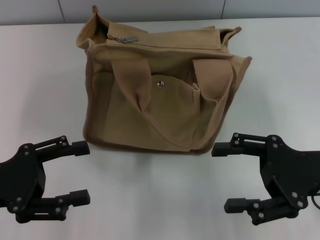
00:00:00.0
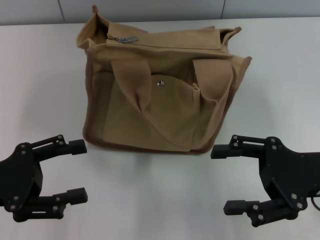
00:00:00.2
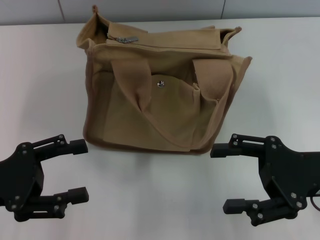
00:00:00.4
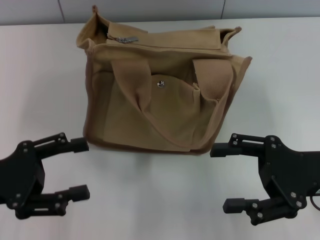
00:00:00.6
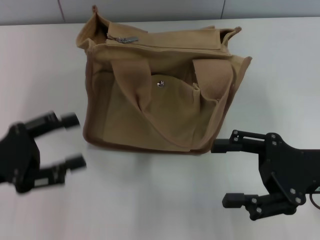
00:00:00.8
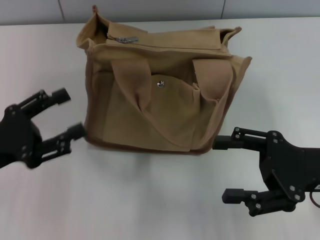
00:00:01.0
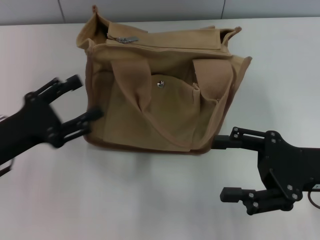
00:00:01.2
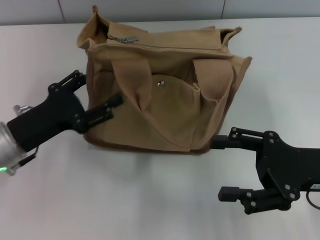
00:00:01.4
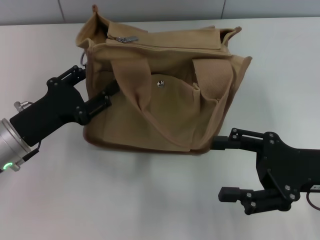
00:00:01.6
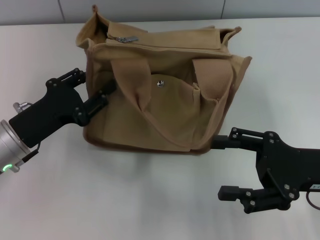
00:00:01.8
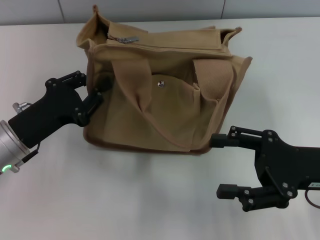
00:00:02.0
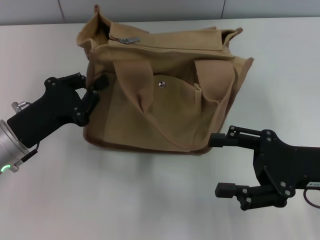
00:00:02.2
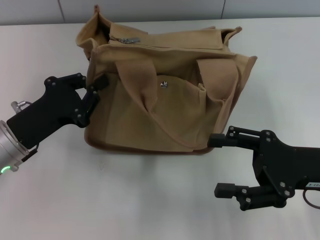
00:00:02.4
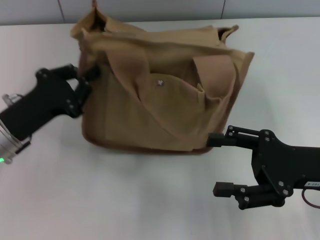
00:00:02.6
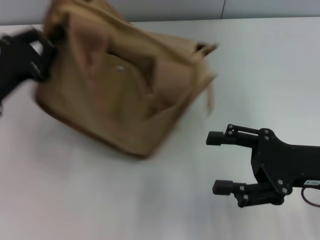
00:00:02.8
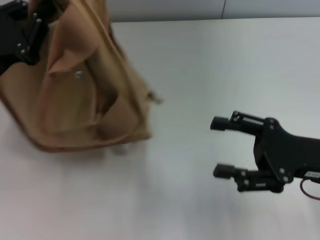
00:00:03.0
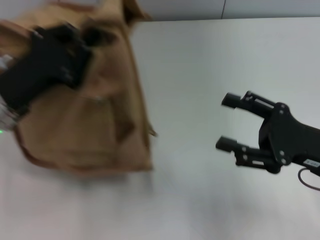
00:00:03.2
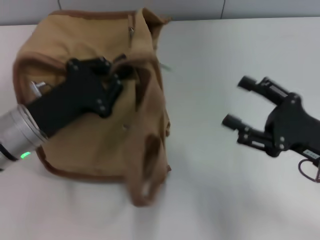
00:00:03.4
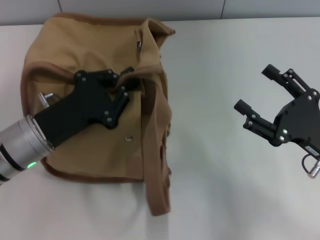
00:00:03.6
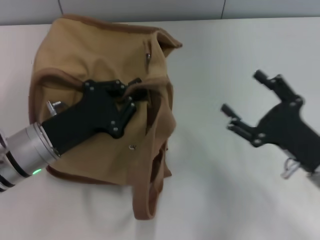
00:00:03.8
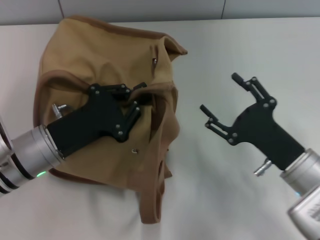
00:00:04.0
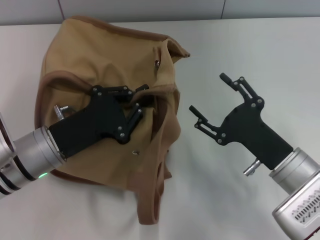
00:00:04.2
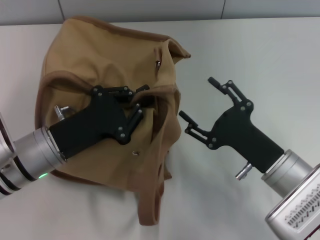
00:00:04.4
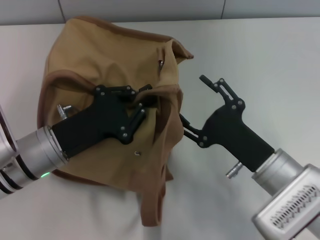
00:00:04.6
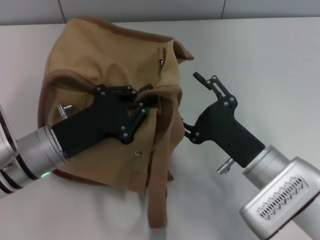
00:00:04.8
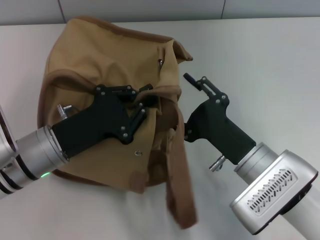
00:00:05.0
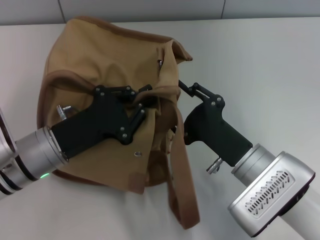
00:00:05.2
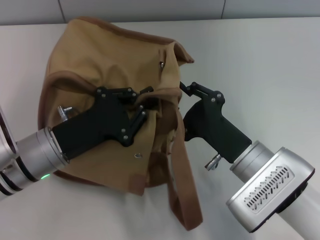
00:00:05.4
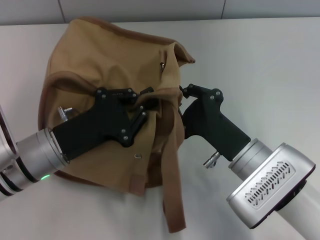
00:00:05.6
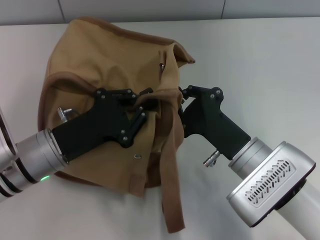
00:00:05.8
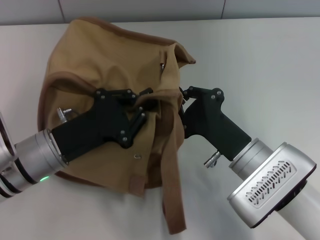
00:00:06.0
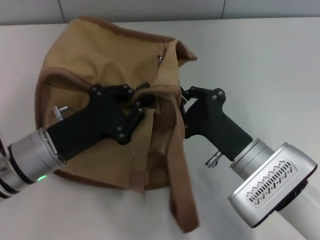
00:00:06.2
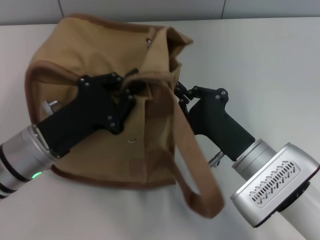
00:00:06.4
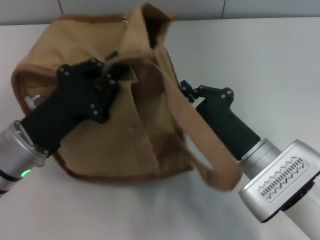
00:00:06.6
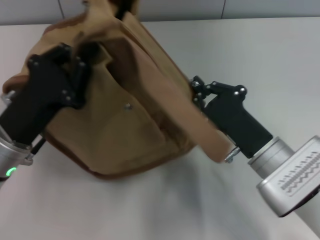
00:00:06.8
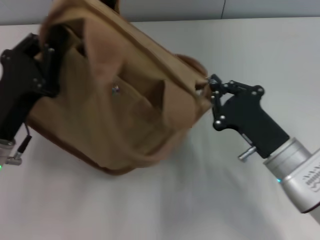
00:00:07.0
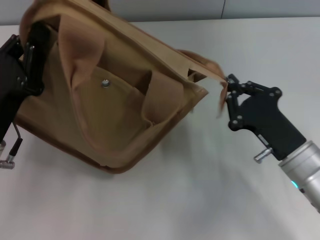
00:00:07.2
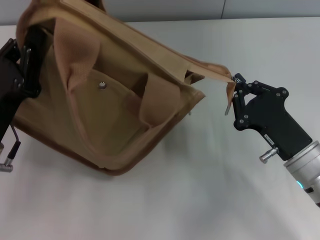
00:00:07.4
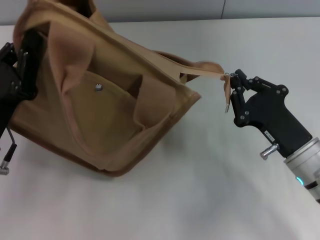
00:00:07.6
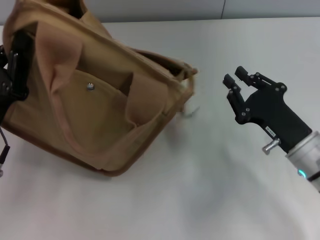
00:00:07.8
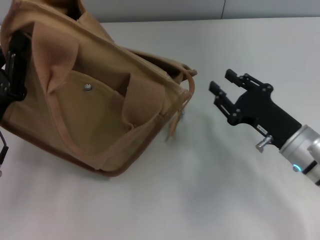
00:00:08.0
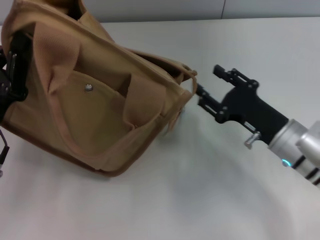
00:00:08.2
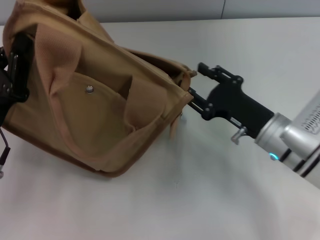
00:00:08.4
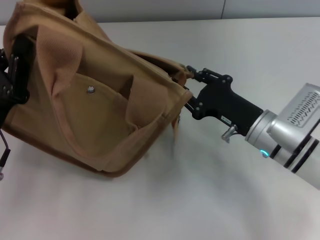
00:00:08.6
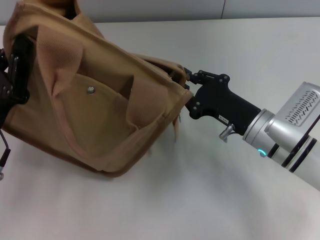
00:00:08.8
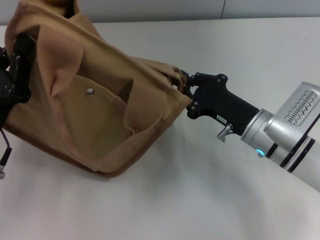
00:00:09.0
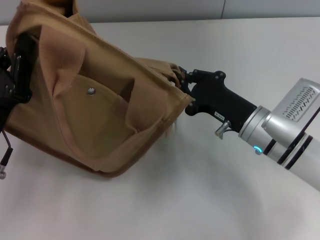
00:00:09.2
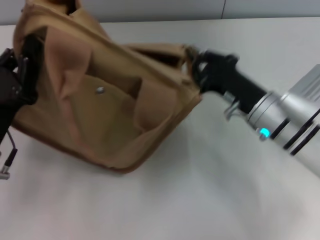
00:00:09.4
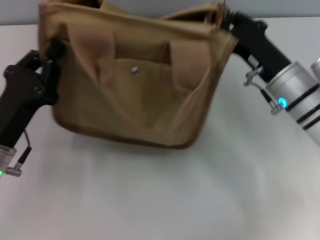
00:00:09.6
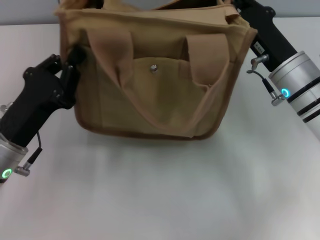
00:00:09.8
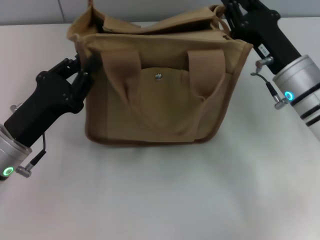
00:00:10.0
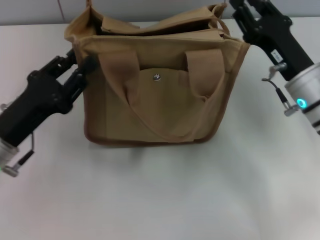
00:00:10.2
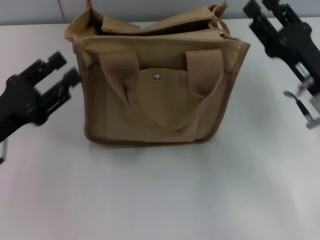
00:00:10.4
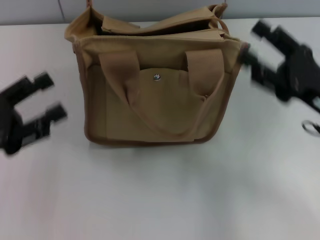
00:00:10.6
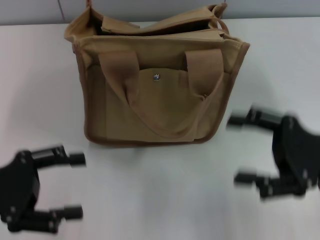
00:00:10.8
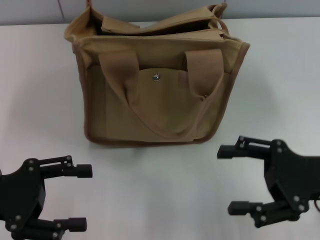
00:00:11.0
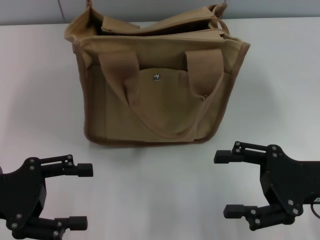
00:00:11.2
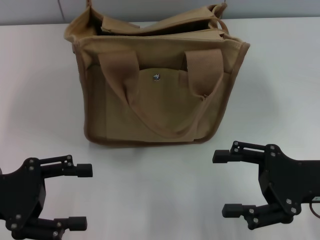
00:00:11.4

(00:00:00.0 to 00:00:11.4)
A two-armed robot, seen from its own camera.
Step, 00:00:00.0 - 00:00:07.6: Pull open the zipper with your right hand.
Step, 00:00:07.8 - 00:00:10.2: Grab the bag with your left hand.
00:00:00.0 - 00:00:01.4: The left gripper heads forward and to the right, covering about 10 cm.
00:00:01.4 - 00:00:02.8: The left gripper ends up about 5 cm from where it was, and closes.
00:00:02.8 - 00:00:04.2: The left gripper shifts about 10 cm to the right. Meanwhile the right gripper goes about 10 cm downward and to the left.
00:00:04.2 - 00:00:05.6: The right gripper goes roughly 5 cm to the left, and closes up.
00:00:05.6 - 00:00:07.2: The left gripper ends up approximately 5 cm from where it was, while the right gripper moves to the right, roughly 5 cm, and closes.
00:00:07.2 - 00:00:08.6: The right gripper heads forward, covering roughly 5 cm, and opens its fingers.
00:00:08.6 - 00:00:10.0: The right gripper ends up some 5 cm from where it was, and closes its fingers.
00:00:10.0 - 00:00:11.4: The left gripper goes roughly 5 cm to the left, and opens its fingers. Meanwhile the right gripper moves backward and to the right, some 10 cm, and opens up.

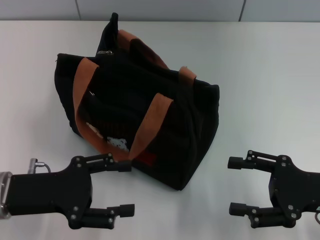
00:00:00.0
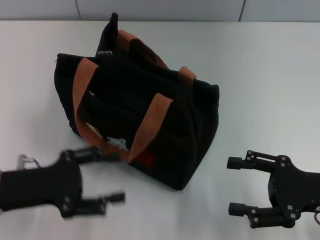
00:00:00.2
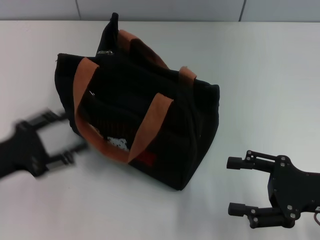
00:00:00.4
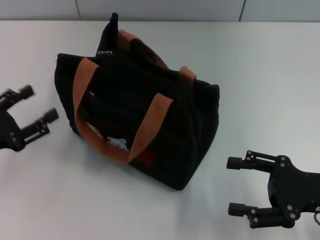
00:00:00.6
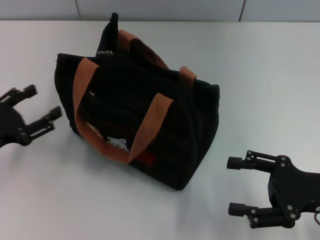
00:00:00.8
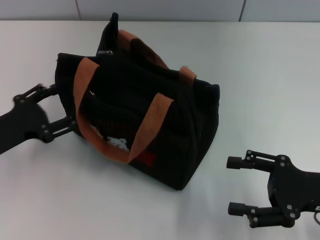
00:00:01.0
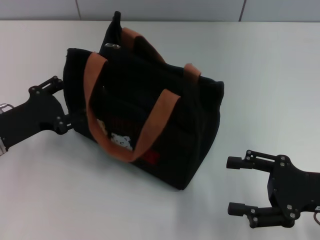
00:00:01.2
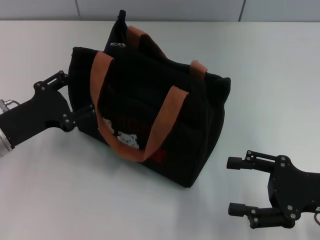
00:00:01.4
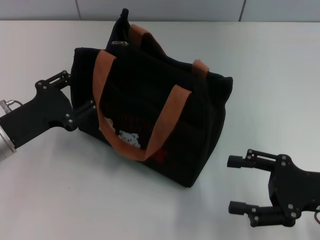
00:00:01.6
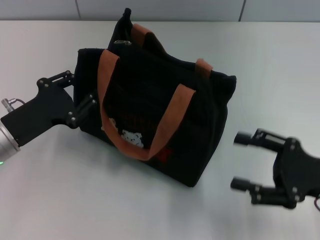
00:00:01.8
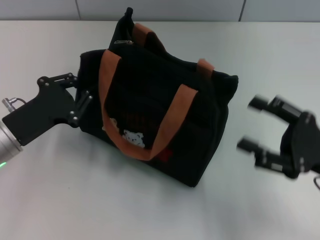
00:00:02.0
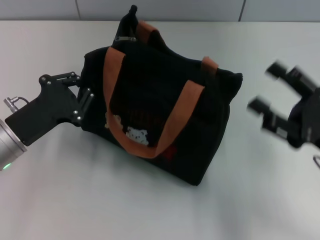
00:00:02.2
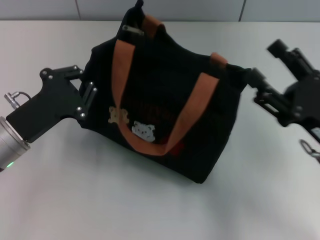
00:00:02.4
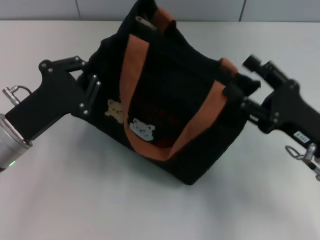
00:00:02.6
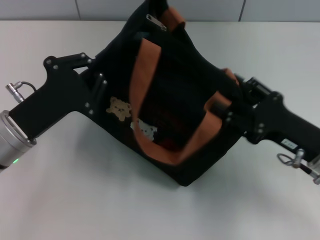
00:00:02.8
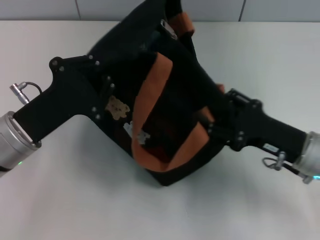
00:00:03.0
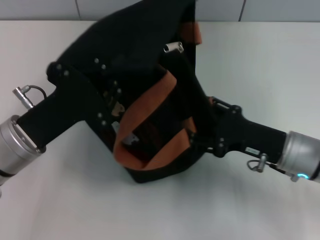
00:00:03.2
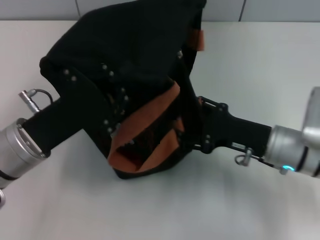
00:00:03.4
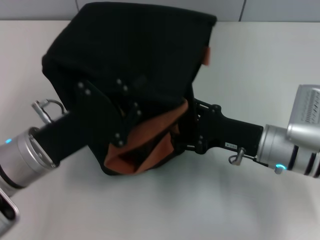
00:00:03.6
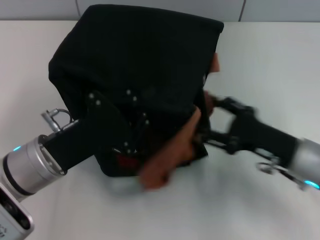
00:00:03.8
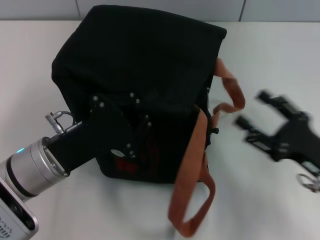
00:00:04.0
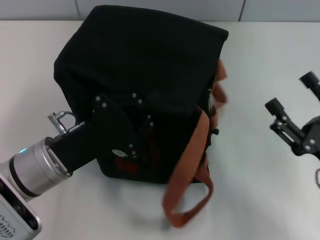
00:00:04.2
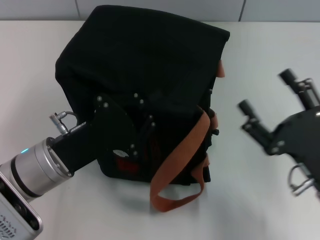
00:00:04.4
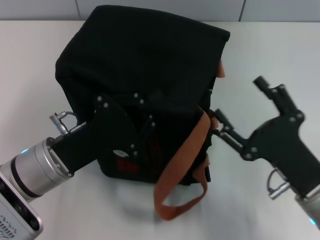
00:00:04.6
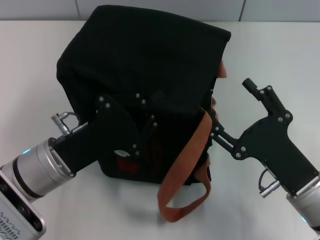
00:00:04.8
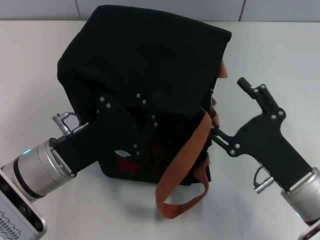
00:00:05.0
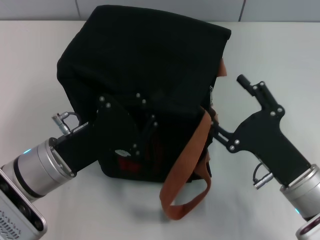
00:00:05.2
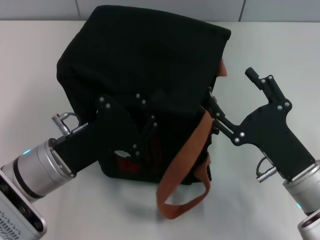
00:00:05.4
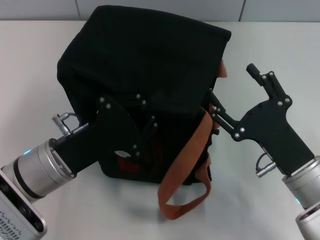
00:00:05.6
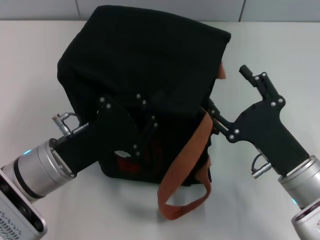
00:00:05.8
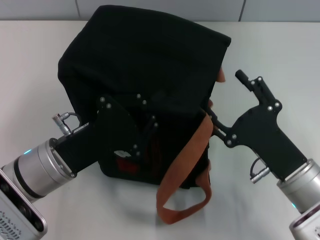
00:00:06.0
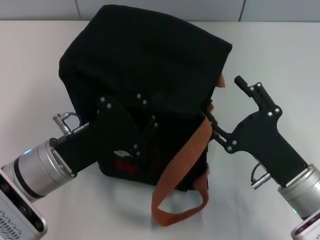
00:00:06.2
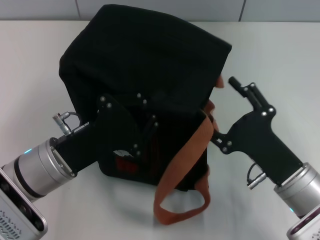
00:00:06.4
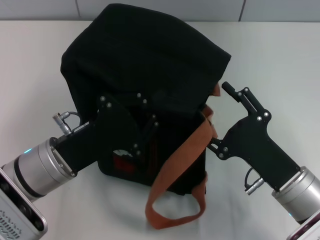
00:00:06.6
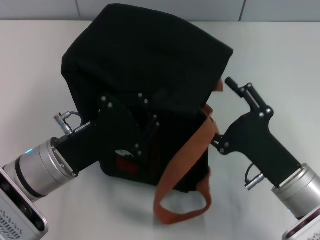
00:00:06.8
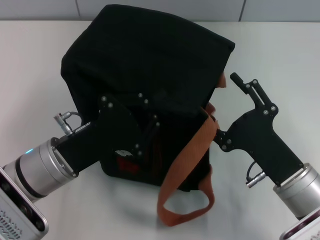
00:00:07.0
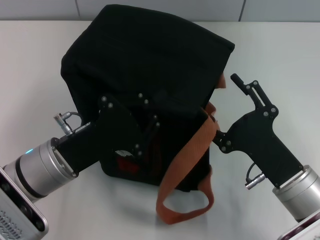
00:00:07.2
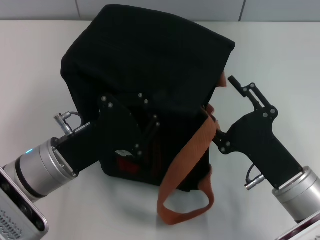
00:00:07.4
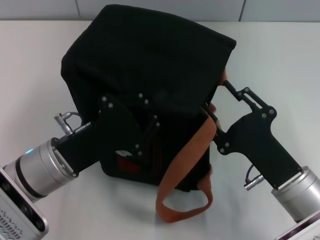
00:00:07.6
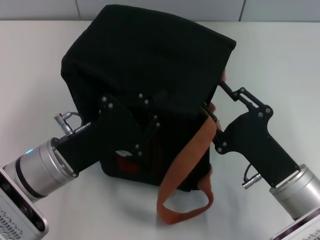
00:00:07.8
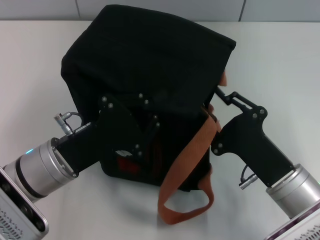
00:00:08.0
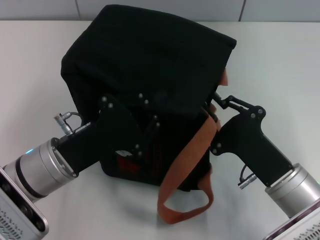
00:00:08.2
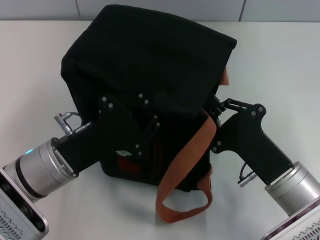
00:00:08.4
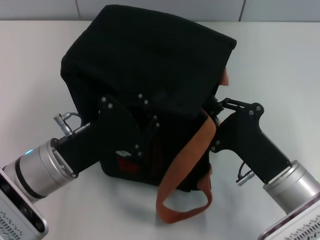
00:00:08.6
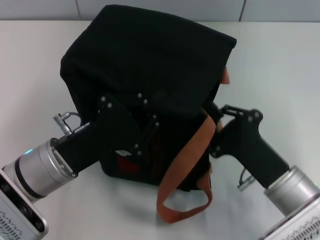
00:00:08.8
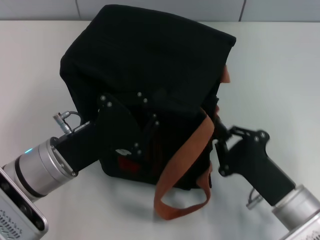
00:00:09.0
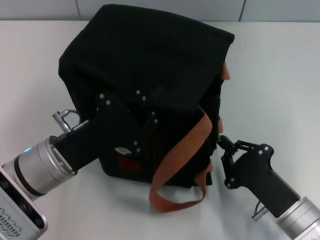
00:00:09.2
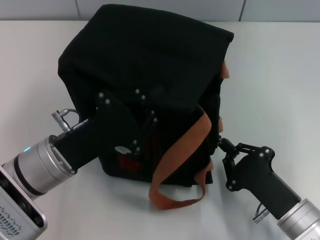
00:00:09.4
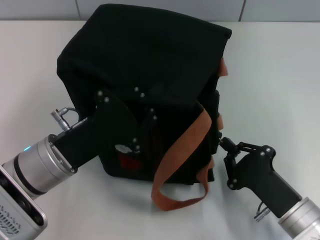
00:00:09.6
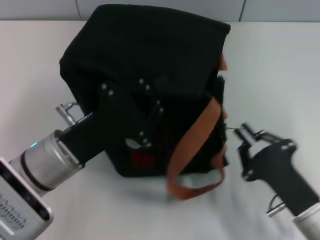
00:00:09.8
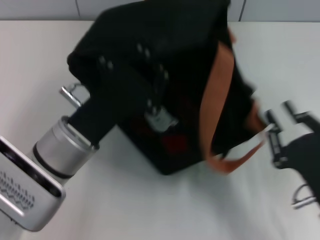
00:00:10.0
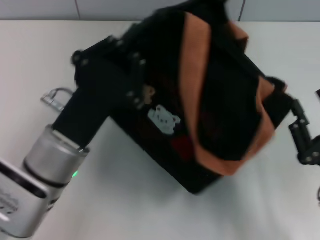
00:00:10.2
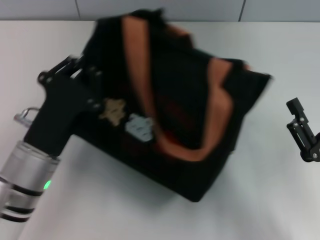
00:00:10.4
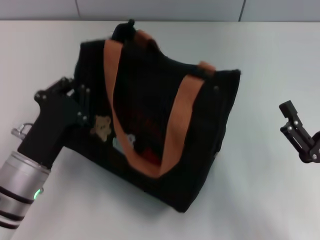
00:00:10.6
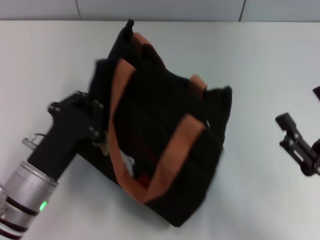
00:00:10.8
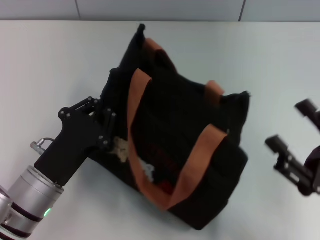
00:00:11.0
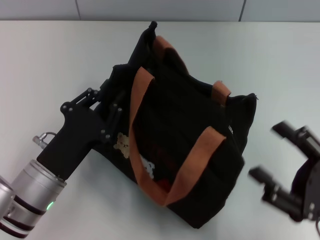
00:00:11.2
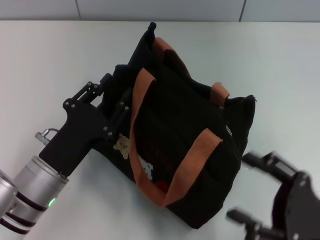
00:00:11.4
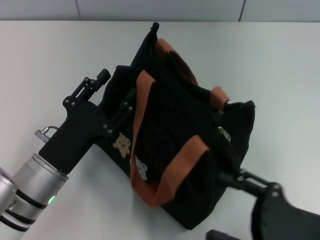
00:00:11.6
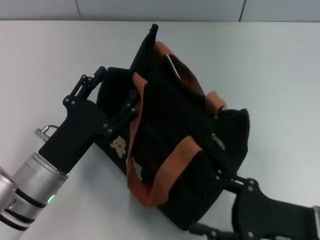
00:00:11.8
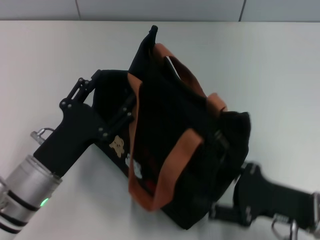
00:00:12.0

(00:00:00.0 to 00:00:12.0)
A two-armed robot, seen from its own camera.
Step, 00:00:00.0 - 00:00:09.6: Pull open the zipper with your right hand.
Step, 00:00:09.8 - 00:00:11.4: Grab the bag with your left hand.
00:00:00.0 - 00:00:01.6: The left gripper heads forward, covering about 5 cm.
00:00:01.6 - 00:00:03.0: The right gripper goes some 5 cm to the left. The left gripper shifts by approximately 5 cm, and closes up.
00:00:03.0 - 00:00:04.4: The right gripper goes some 10 cm backward.
00:00:06.0 - 00:00:07.6: The grippers stay close to where they were, moving slightly.
00:00:07.6 - 00:00:09.0: The right gripper closes.
00:00:09.0 - 00:00:10.4: The right gripper moves to the right, some 5 cm, and opens its fingers.
00:00:10.4 - 00:00:12.0: The left gripper opens its fingers. The right gripper opens.
